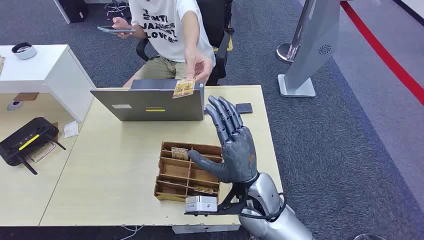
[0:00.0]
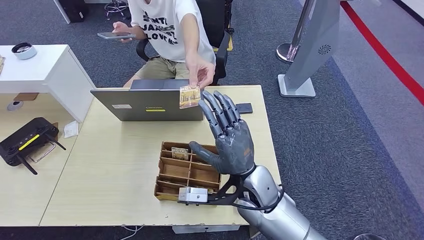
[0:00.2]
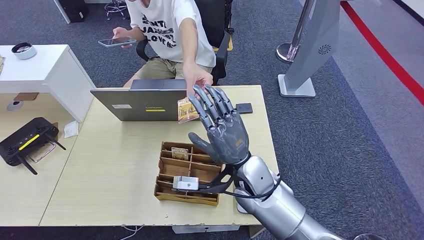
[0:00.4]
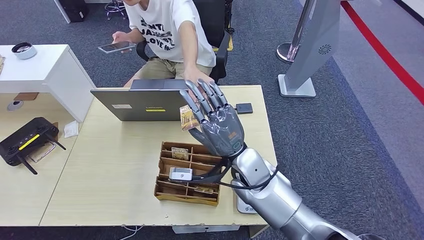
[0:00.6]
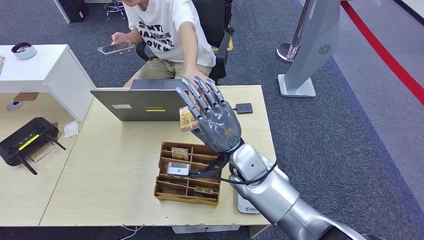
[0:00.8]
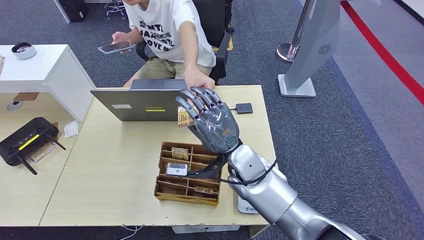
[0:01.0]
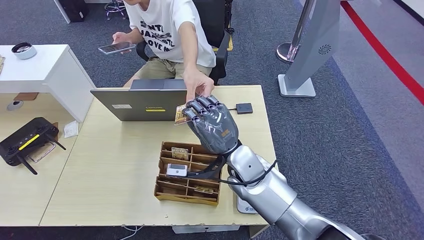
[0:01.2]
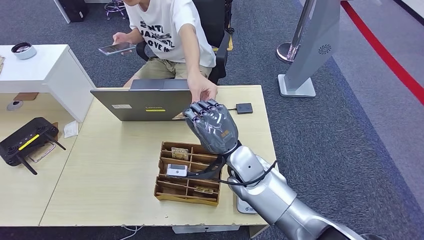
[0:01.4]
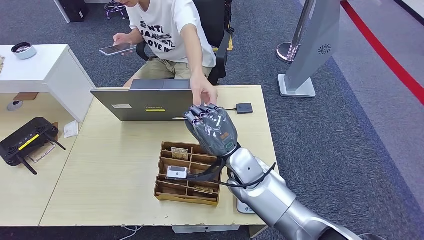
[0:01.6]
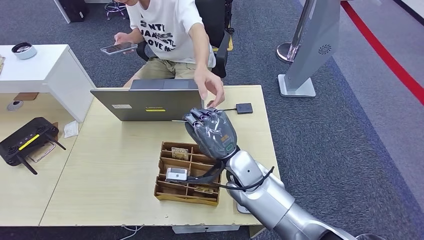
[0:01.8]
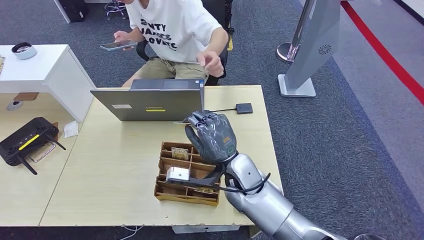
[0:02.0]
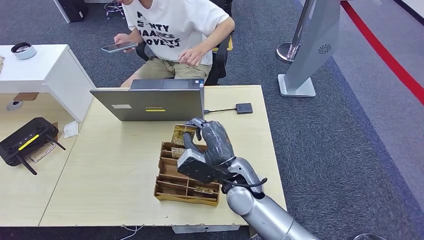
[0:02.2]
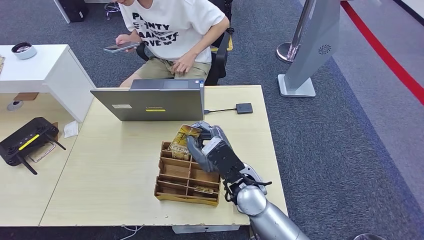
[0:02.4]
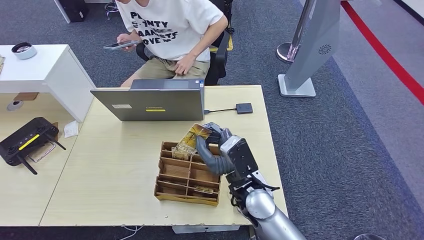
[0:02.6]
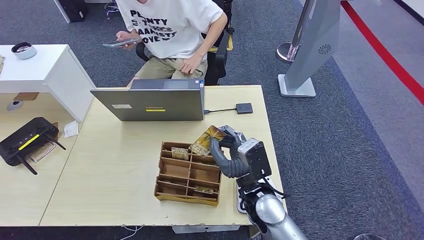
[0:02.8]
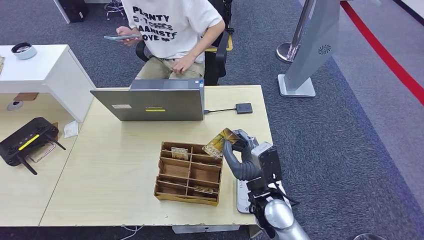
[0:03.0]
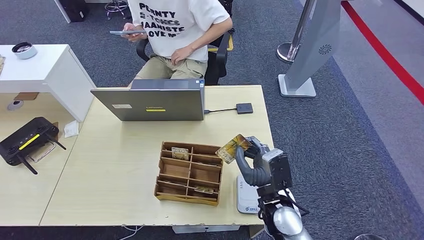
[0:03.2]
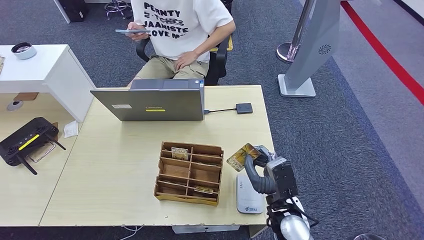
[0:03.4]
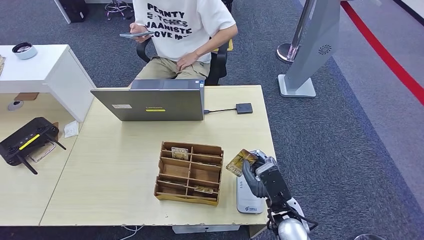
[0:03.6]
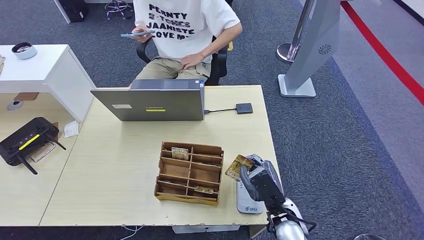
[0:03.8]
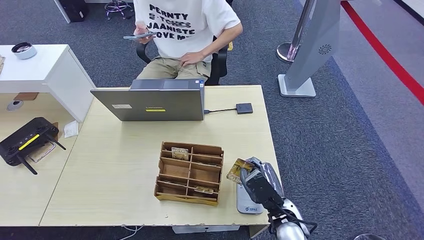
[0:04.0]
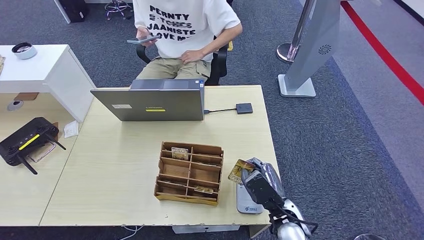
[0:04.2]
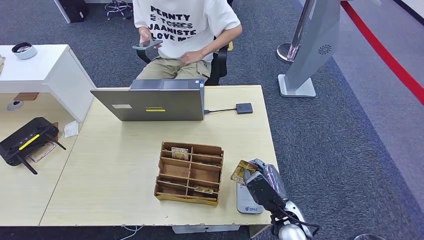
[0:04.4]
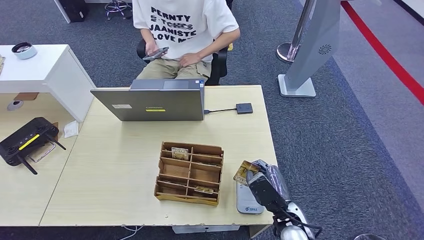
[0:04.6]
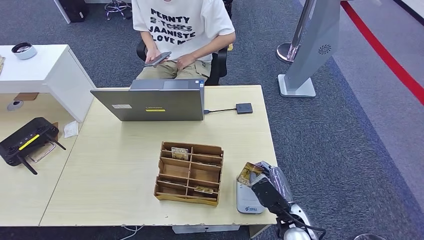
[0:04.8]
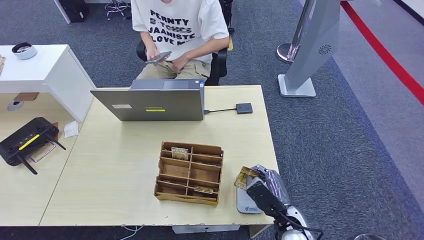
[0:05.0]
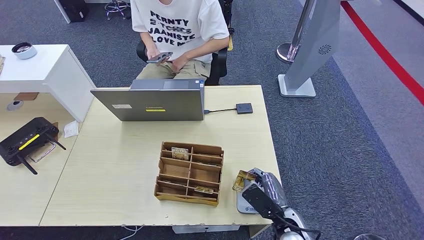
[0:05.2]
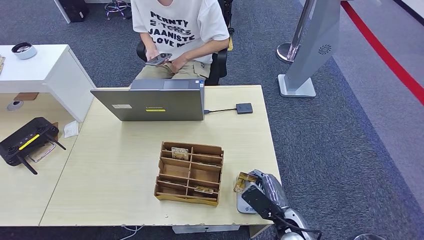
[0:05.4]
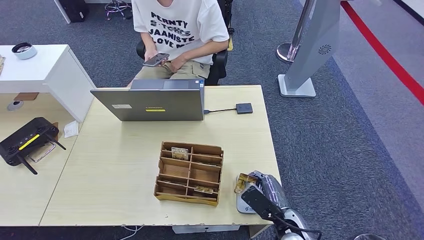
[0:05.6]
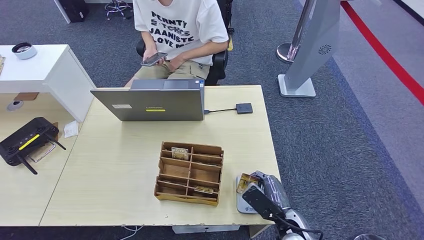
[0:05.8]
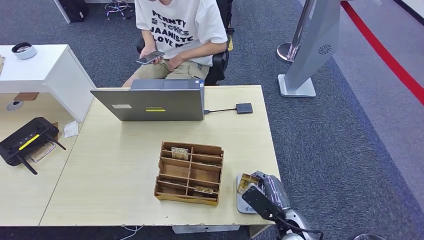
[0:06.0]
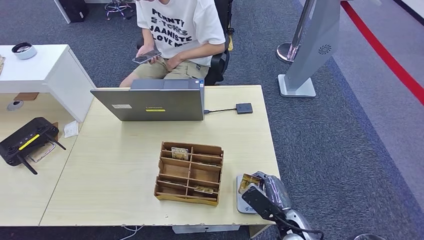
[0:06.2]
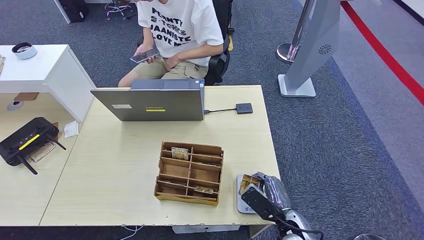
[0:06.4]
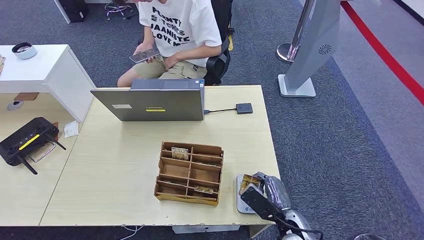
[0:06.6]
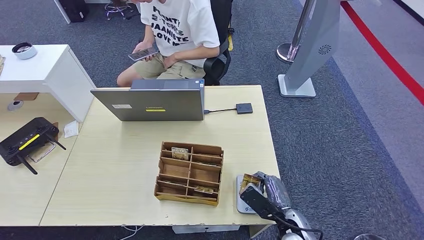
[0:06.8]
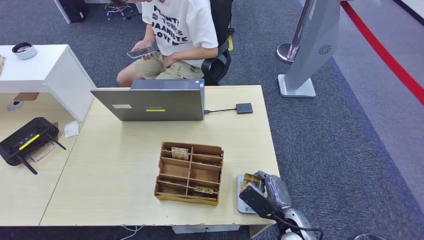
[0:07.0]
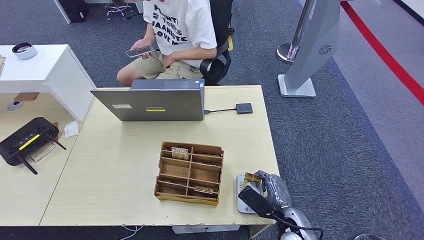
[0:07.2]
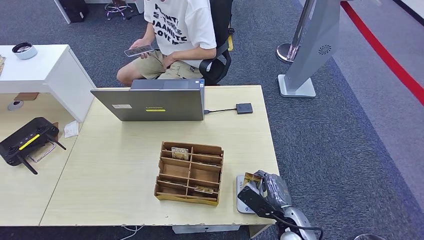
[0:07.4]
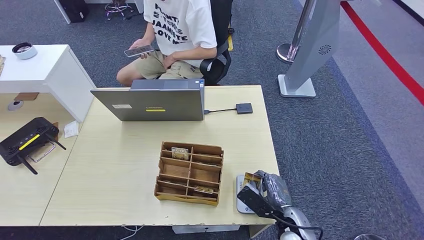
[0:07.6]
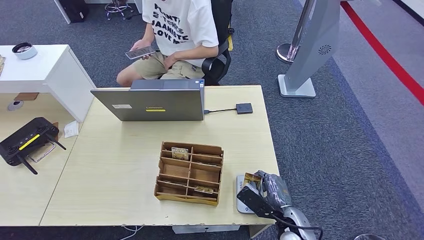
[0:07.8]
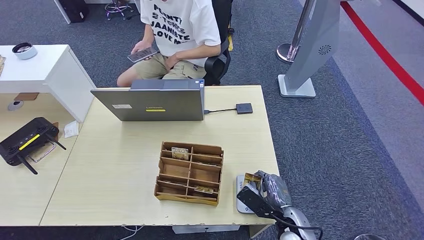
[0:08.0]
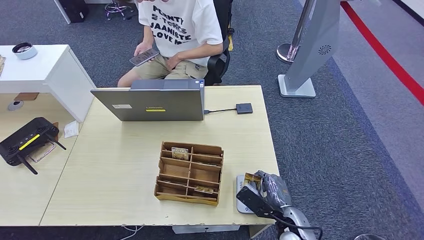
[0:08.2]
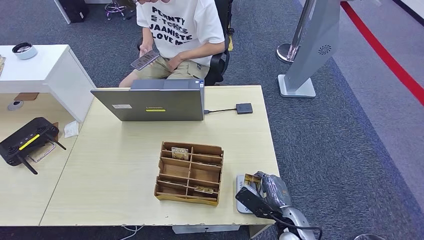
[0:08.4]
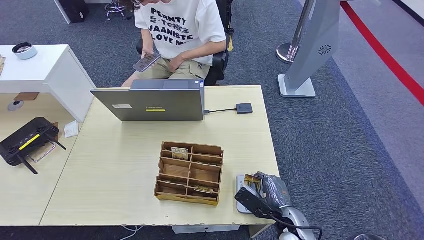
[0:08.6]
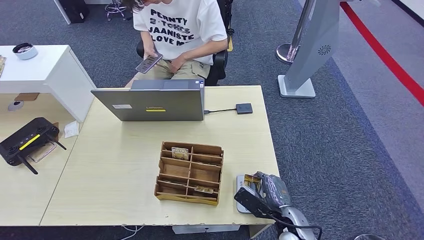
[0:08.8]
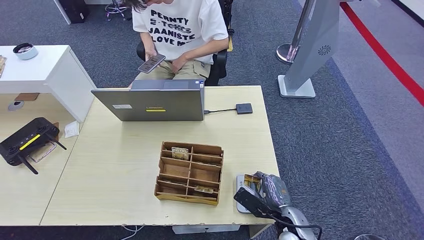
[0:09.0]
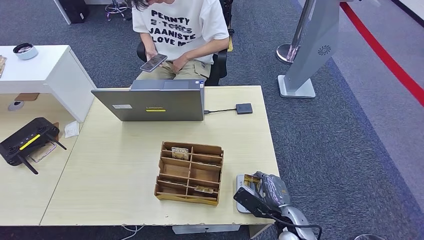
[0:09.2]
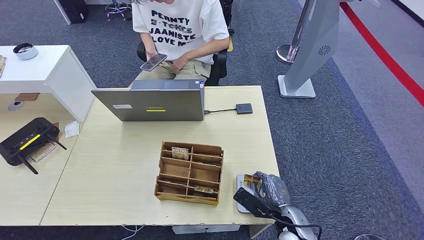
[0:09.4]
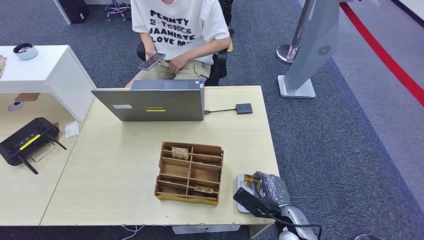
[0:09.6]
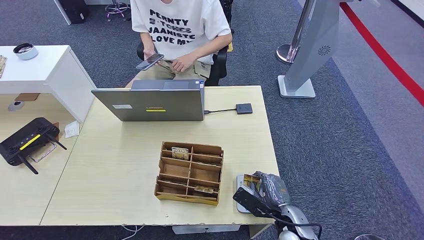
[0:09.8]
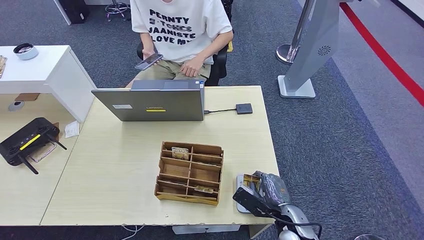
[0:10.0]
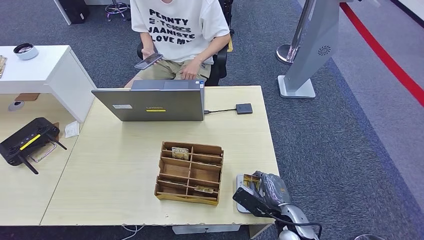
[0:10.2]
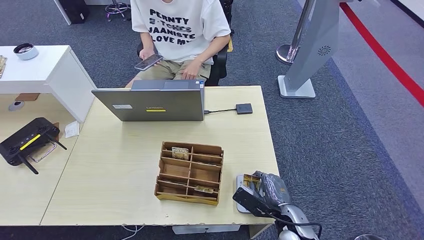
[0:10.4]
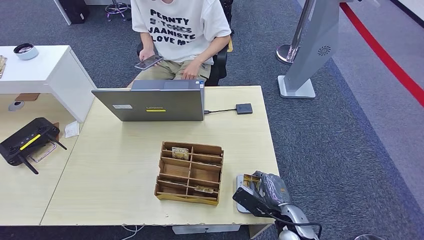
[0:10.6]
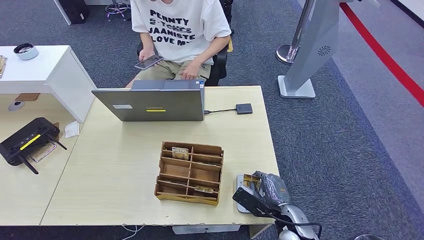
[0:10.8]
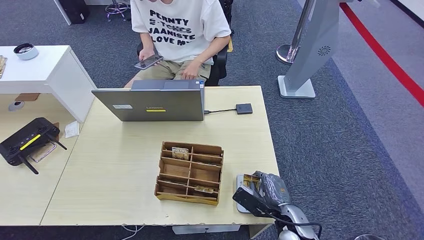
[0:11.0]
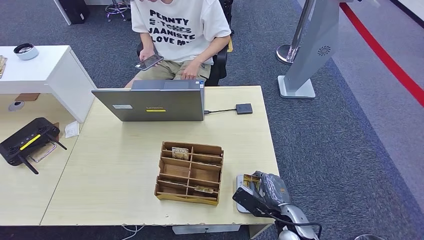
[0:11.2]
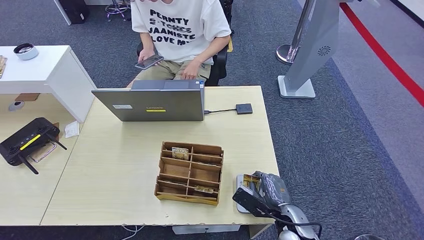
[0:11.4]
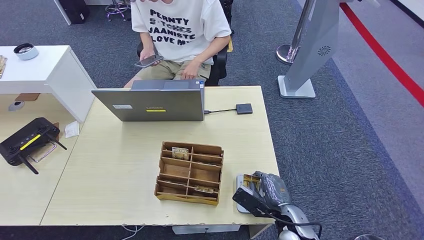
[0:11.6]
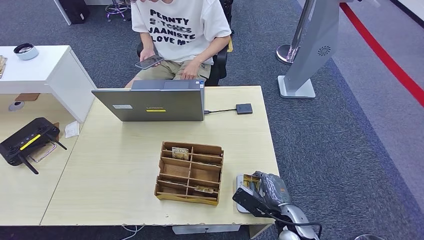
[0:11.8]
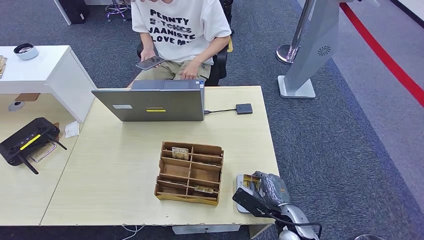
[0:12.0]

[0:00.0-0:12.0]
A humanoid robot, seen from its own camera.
Step, 0:00.0 to 0:02.0: Take the ID card from the person's hand.
Step, 0:02.2 to 0:07.2: Place the ID card on the card reader.
0:01.6 to 0:03.0: The right hand is displaced backward and to the right by some 10 cm.
0:03.0 to 0:04.4: The right hand shifts some 10 cm downward and to the right.
0:04.4 to 0:06.0: The hands make only small movements.
0:06.0 to 0:09.0: There are only small adjustments of the hands.
0:09.0 to 0:12.0: Both hands stay put.

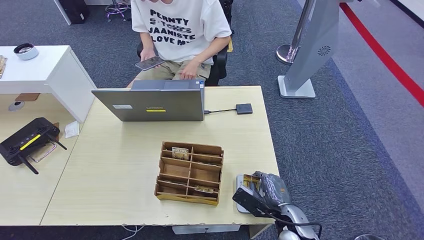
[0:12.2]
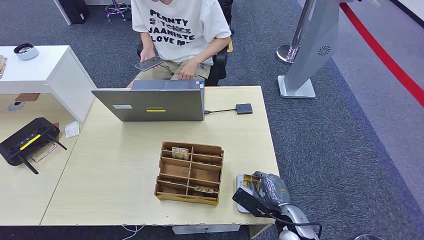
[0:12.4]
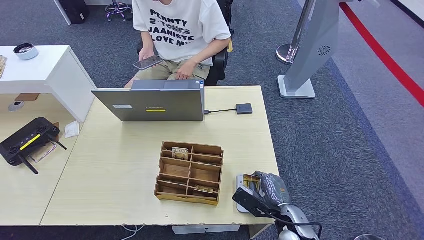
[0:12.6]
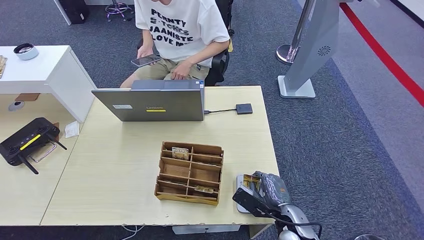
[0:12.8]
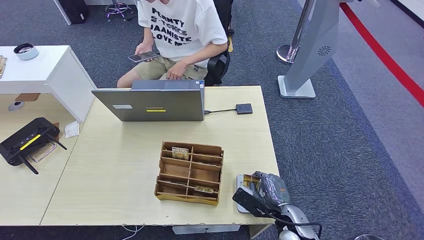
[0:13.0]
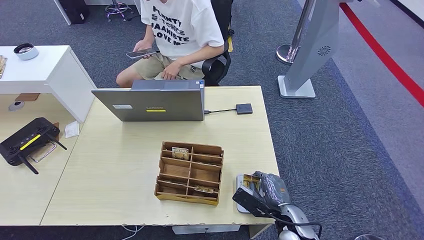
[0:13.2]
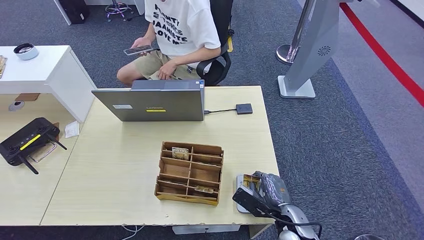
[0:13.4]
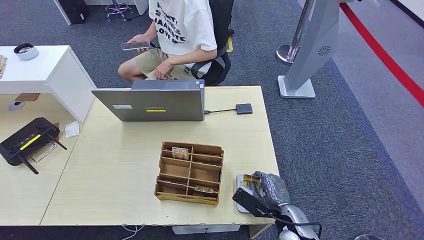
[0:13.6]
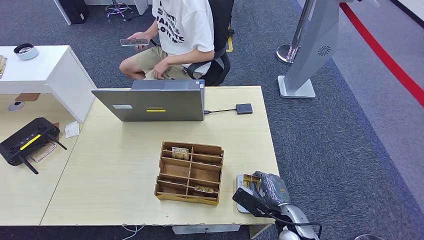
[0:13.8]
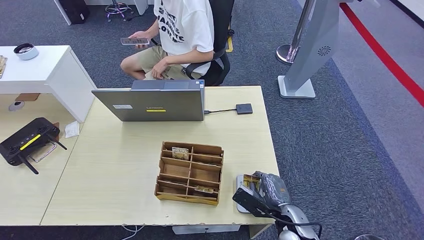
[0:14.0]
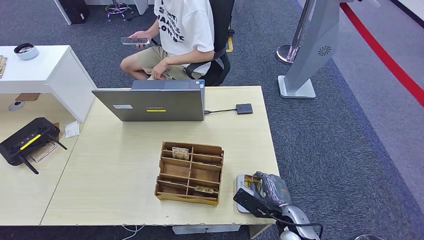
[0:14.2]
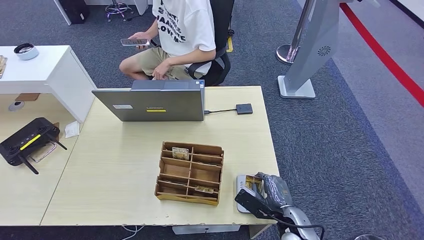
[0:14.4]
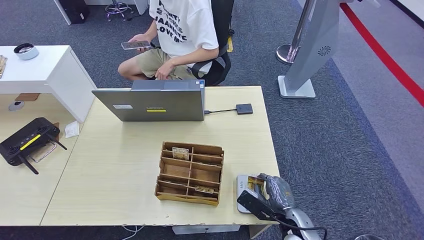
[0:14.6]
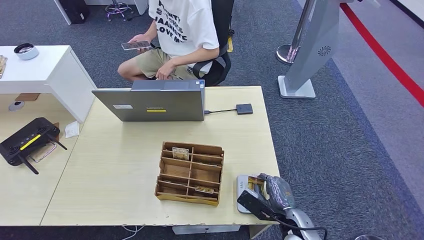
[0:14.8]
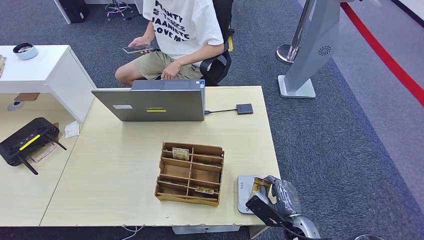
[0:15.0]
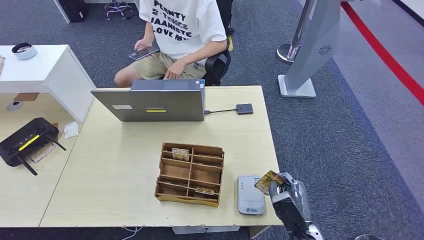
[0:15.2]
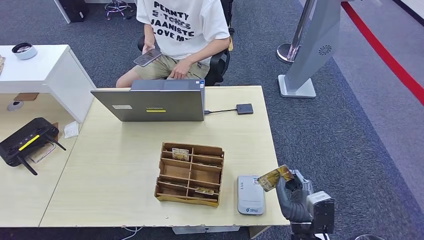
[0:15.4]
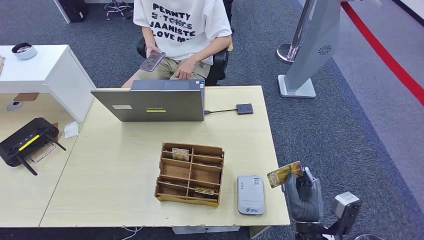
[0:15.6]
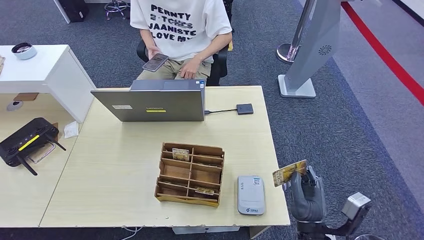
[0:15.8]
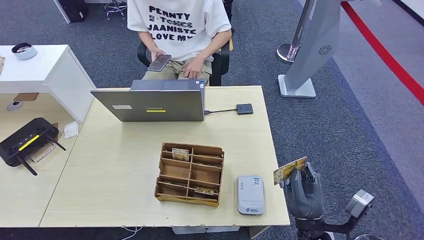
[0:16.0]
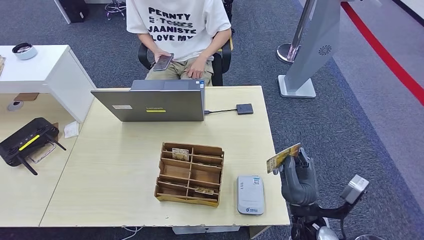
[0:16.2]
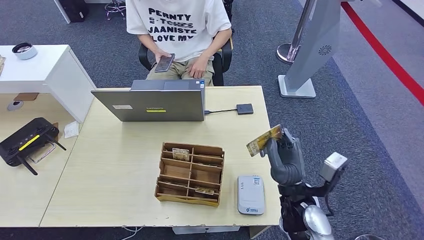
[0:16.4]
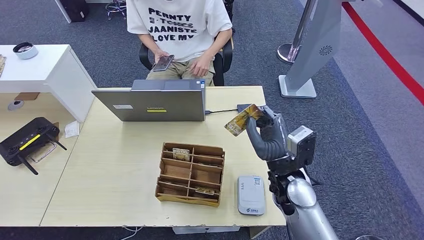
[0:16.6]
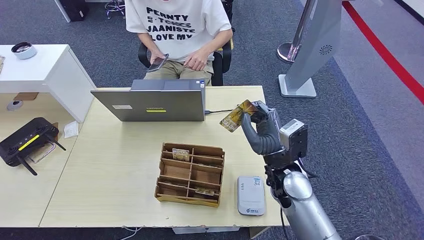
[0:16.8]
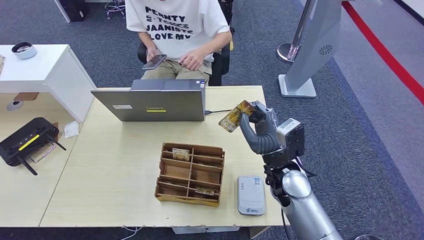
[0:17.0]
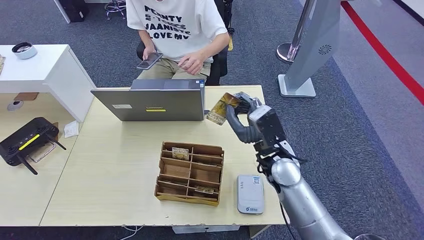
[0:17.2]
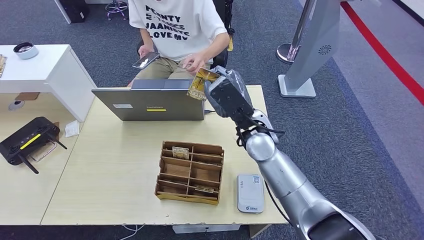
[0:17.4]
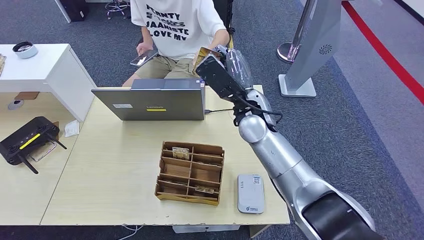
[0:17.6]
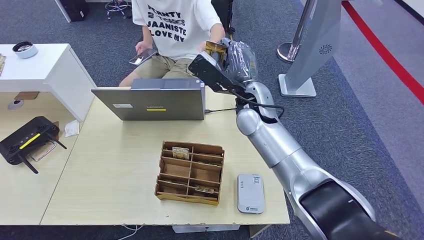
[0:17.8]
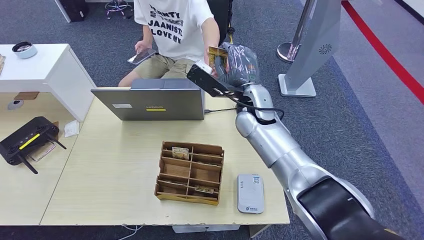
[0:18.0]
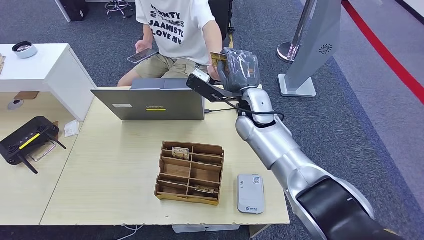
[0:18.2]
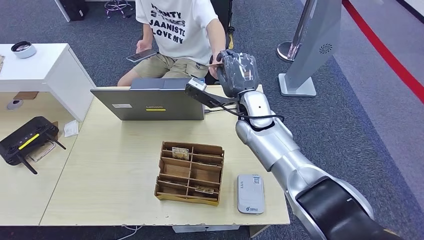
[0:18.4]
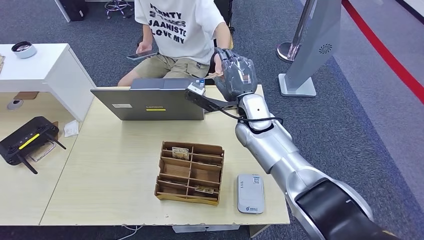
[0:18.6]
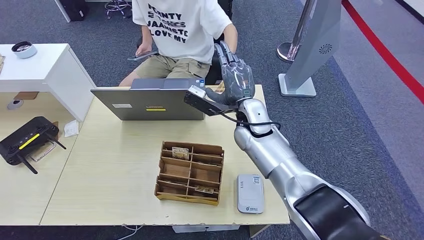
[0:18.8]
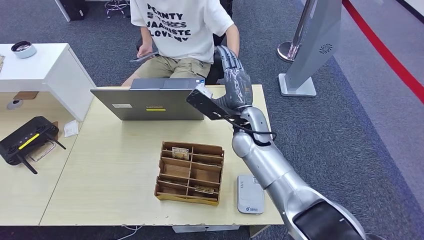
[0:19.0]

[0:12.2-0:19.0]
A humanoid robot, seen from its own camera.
0:12.2 to 0:13.6: Both hands stay put.
0:15.0 to 0:16.2: The left hand moves backward, roughly 5 cm. The right hand heads upward, covering some 10 cm.
0:16.2 to 0:17.6: The right hand goes roughly 30 cm forward, upward and to the left, while the left hand is displaced forward by some 15 cm.
0:17.6 to 0:19.0: The right hand is displaced downward by approximately 5 cm.
